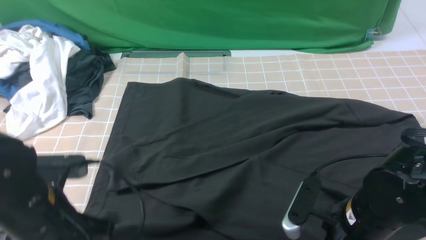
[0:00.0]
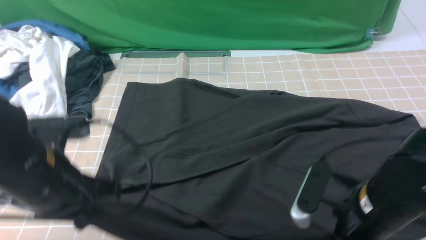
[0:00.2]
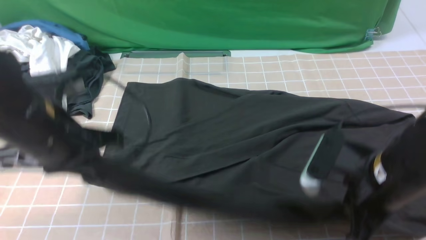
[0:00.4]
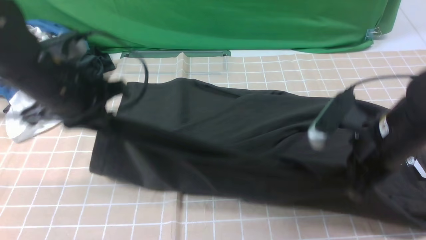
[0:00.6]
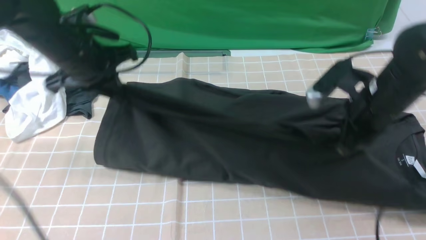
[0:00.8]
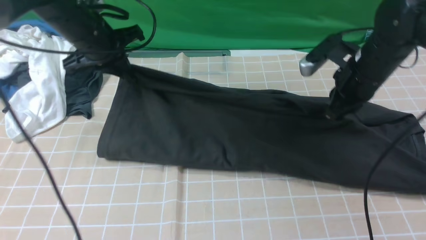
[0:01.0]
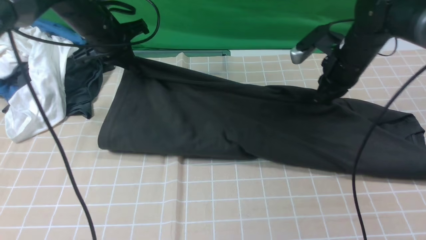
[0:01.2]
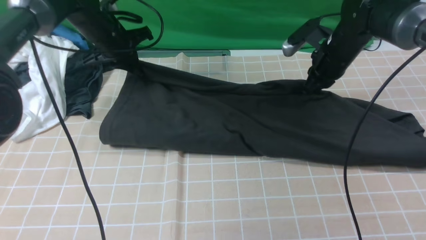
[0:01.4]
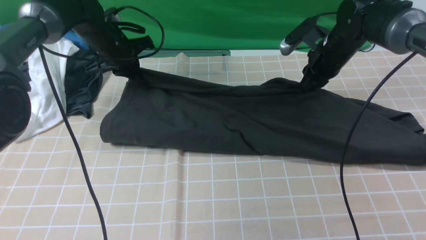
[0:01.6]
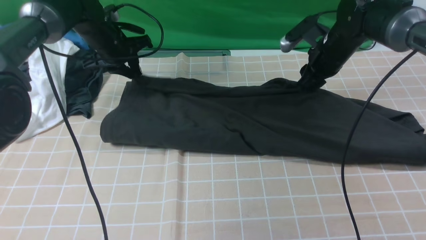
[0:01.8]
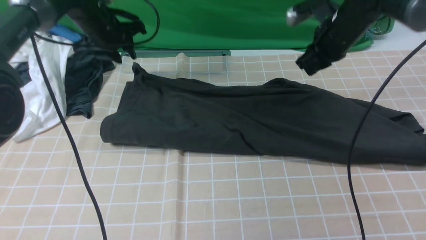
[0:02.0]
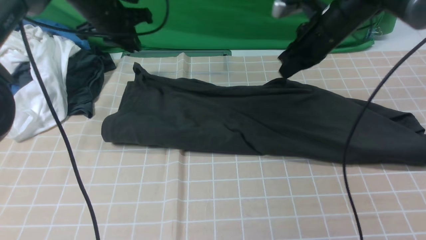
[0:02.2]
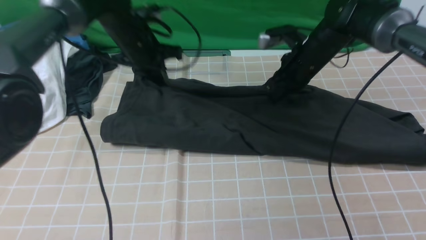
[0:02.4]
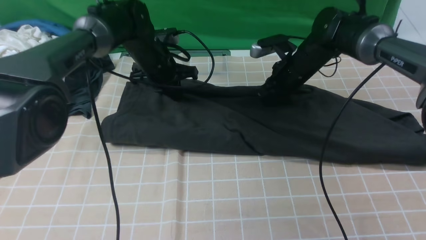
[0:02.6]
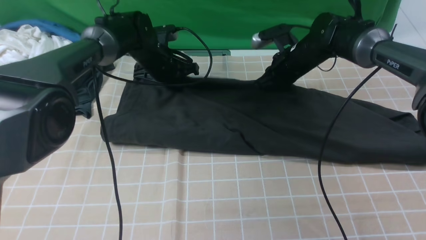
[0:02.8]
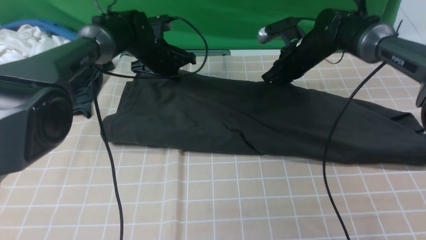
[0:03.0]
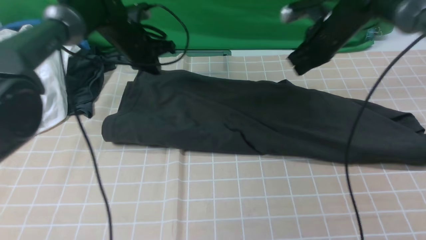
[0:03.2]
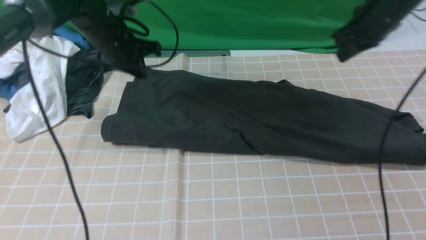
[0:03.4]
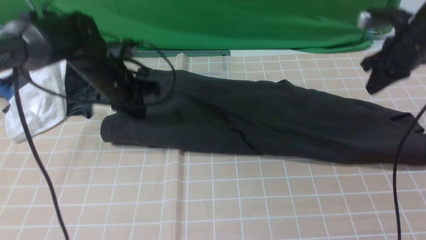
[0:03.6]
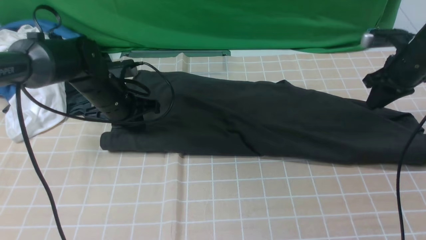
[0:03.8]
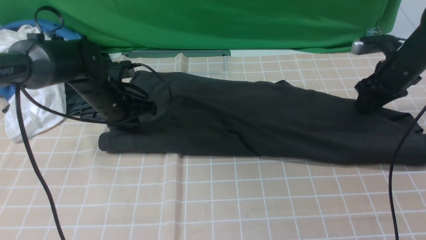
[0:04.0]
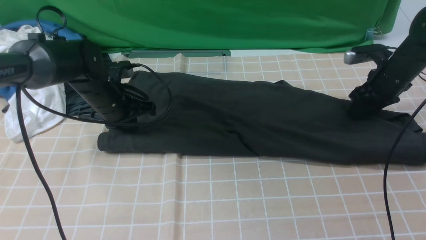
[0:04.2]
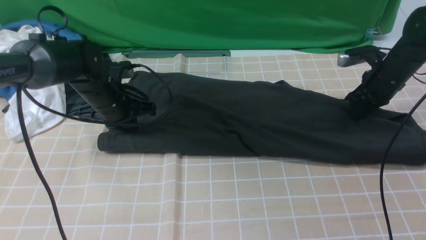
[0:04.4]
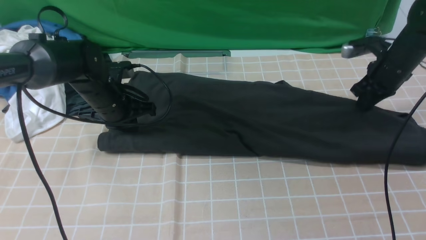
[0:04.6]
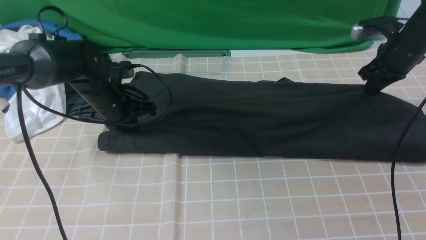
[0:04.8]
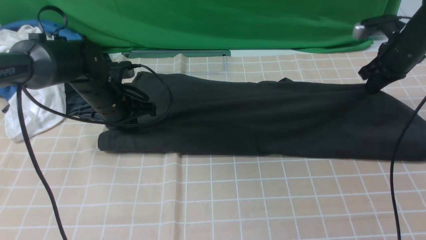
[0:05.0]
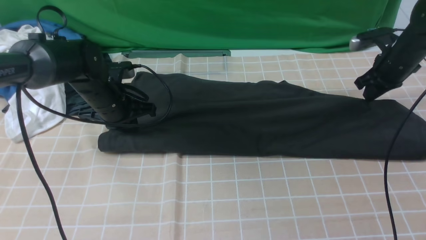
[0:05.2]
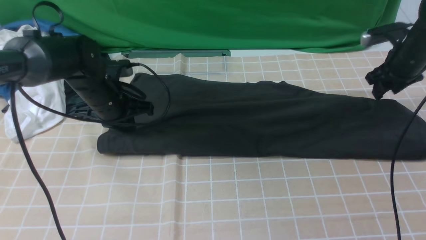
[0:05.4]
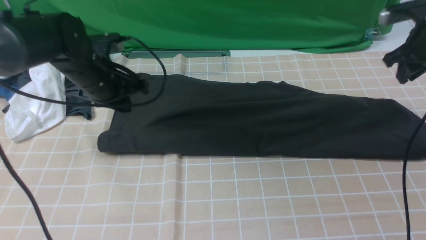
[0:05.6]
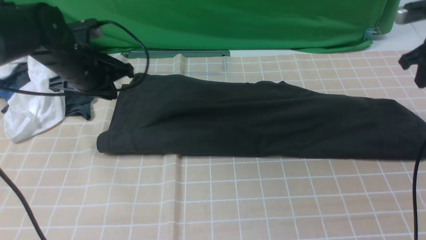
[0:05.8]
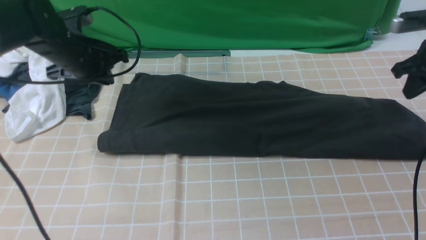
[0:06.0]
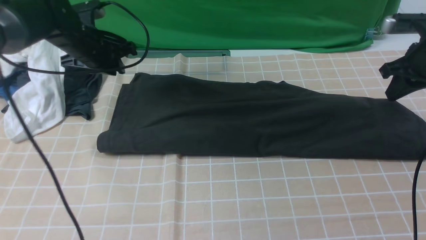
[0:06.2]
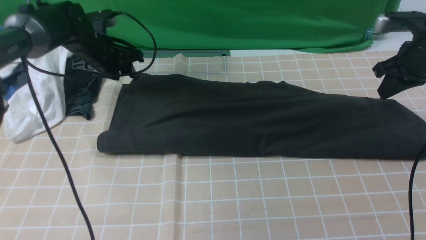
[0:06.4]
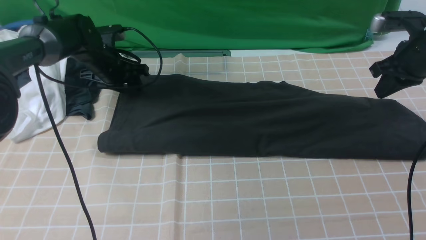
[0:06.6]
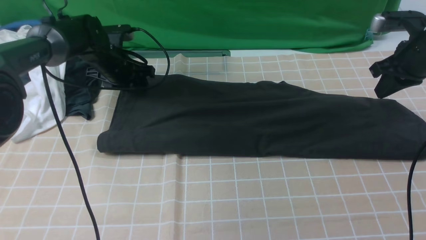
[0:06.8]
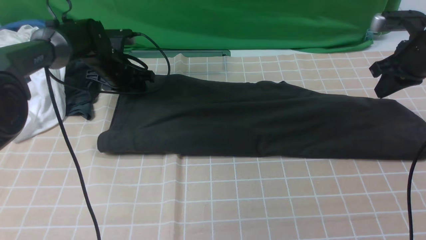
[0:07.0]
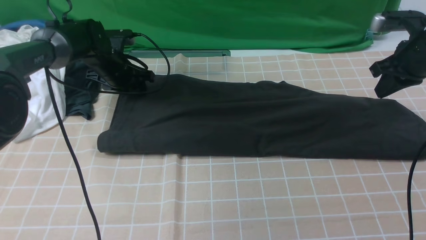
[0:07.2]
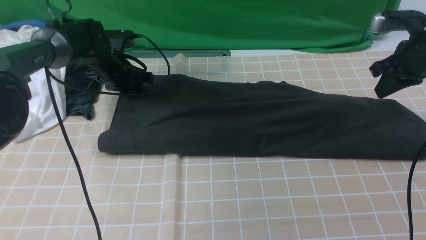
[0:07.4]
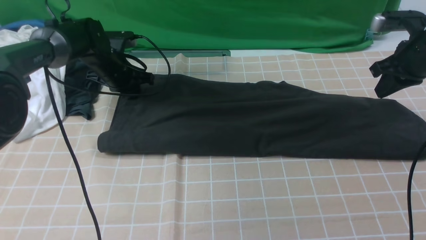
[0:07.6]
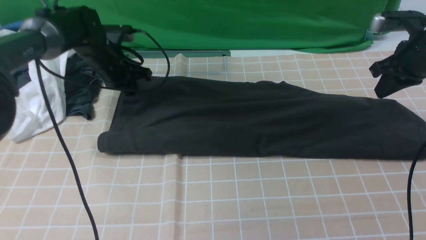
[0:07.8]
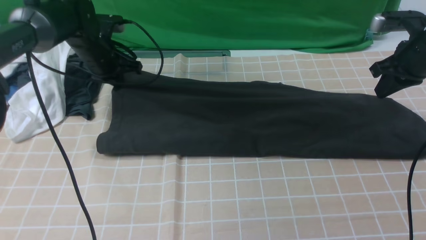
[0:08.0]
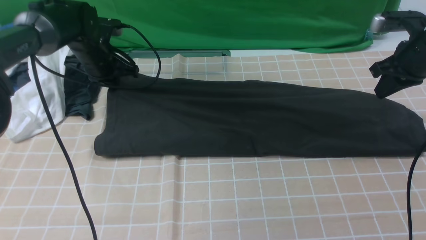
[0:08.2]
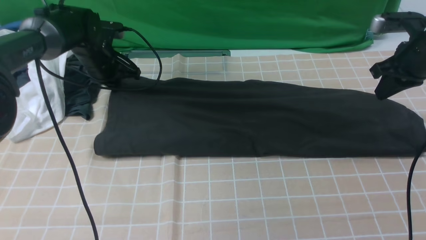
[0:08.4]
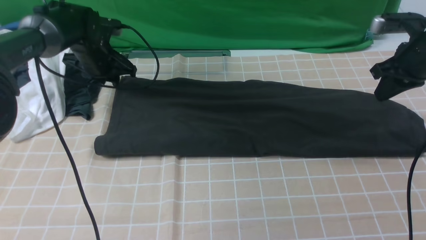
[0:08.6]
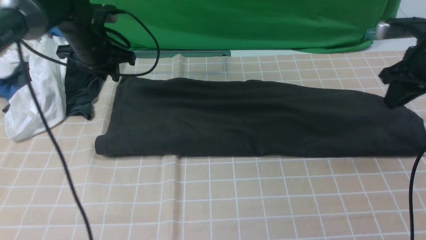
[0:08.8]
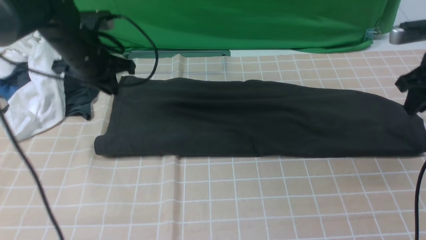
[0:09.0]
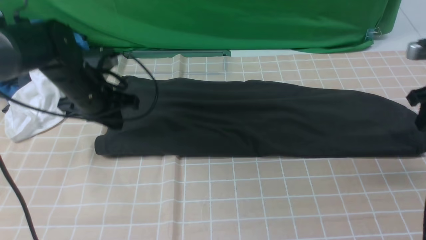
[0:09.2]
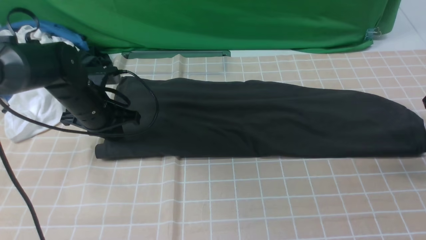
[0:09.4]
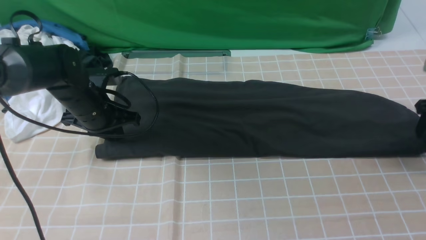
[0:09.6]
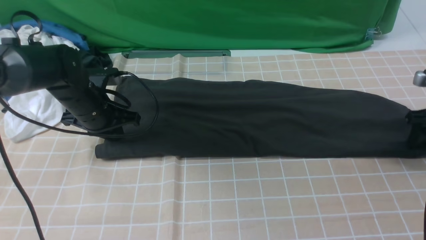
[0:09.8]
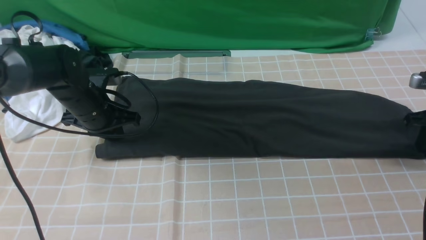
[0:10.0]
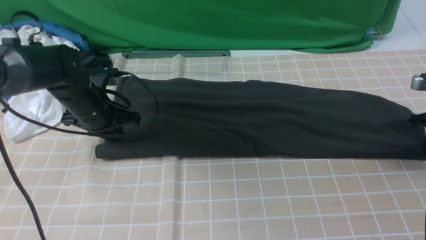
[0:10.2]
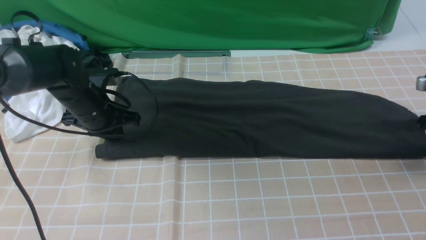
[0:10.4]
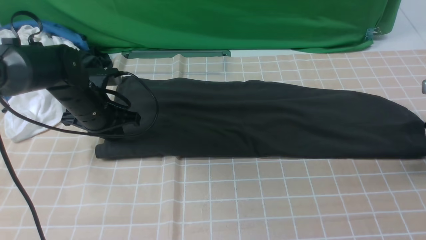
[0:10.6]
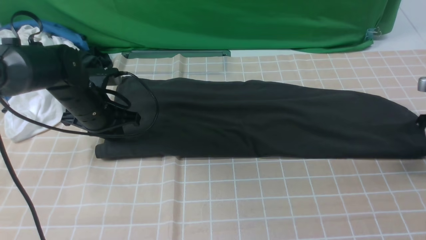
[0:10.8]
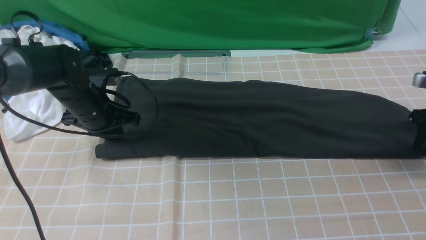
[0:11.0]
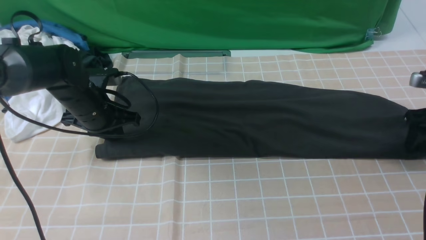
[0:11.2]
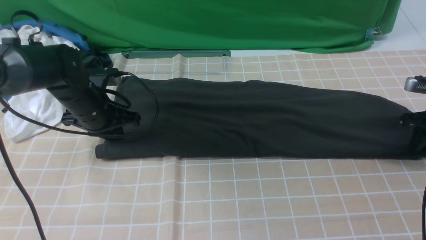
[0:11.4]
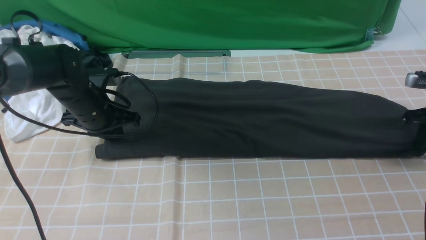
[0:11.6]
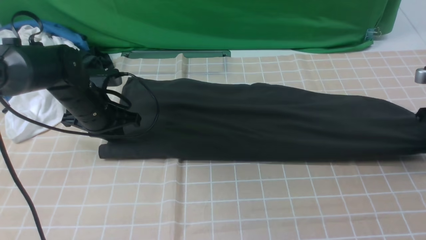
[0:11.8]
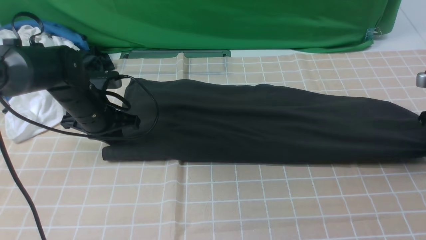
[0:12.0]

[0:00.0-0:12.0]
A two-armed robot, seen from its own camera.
Step, 0:00.2 to 0:02.0: use both arms to drag the lower edge of the fabric forward and fold it over the upper edge.
0:00.0 to 0:01.6: The grippers both shift forward by some 30 cm.
0:01.6 to 0:03.0: The left gripper heads to the right, covering approximately 5 cm; the right gripper closes up.
0:03.0 to 0:04.4: The right gripper travels to the right by roughly 15 cm, and opens, then closes again. The left gripper heads backward and to the left, covering about 10 cm.
0:04.4 to 0:06.0: The grippers both shift upward by some 10 cm.
0:06.0 to 0:07.6: The left gripper travels downward and forward by about 10 cm, and opens, then closes again.
0:07.6 to 0:09.0: The right gripper opens its fingers; the left gripper is displaced backward and upward by about 10 cm.
0:09.0 to 0:10.4: The right gripper goes about 10 cm downward and to the right, and closes. Meanwhile the left gripper travels downward by about 5 cm.
0:10.4 to 0:12.0: The right gripper opens, then closes once more.

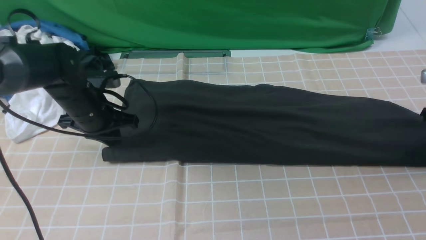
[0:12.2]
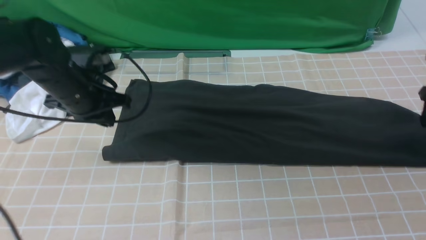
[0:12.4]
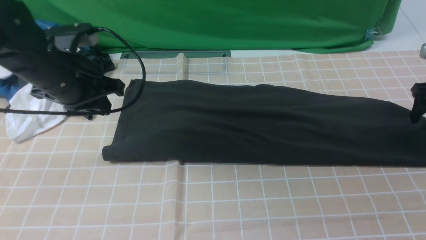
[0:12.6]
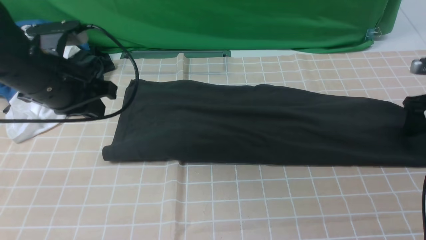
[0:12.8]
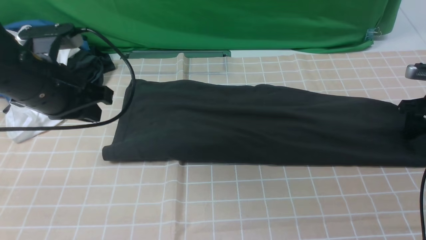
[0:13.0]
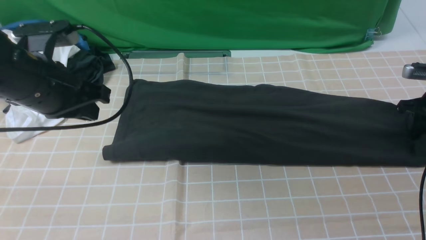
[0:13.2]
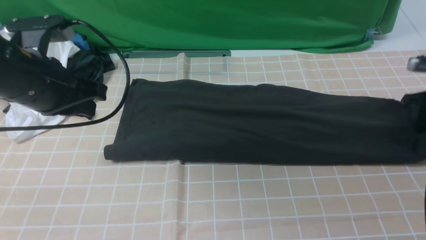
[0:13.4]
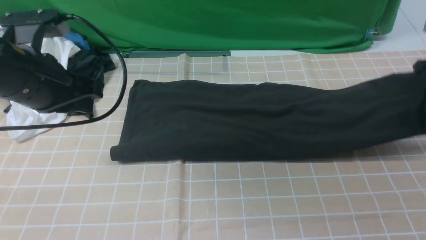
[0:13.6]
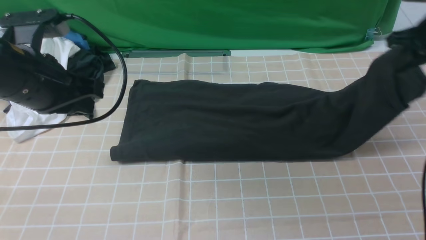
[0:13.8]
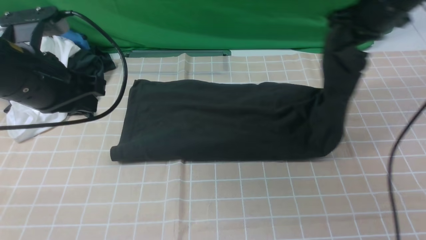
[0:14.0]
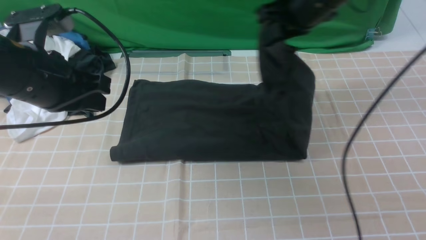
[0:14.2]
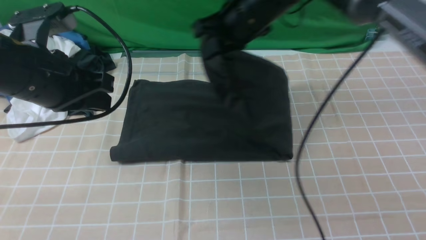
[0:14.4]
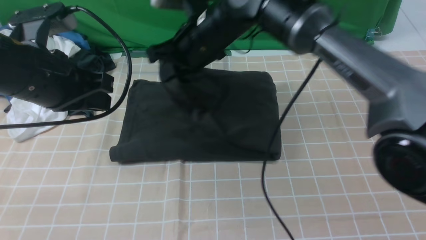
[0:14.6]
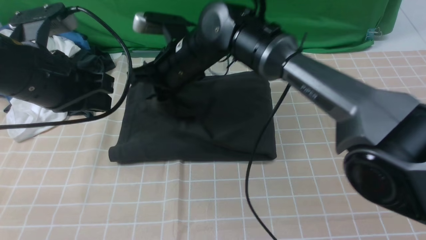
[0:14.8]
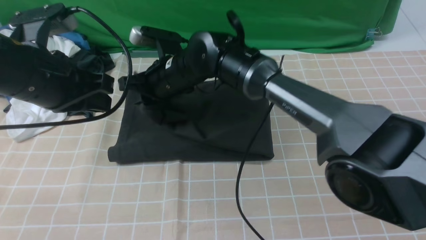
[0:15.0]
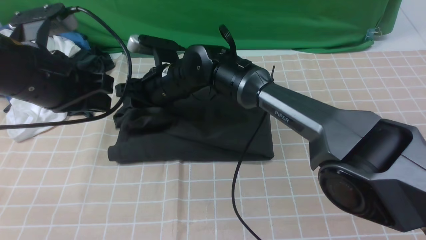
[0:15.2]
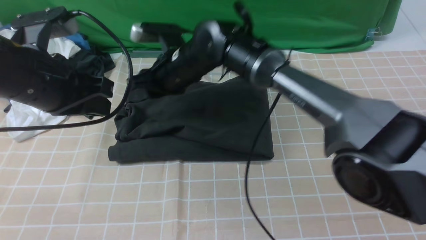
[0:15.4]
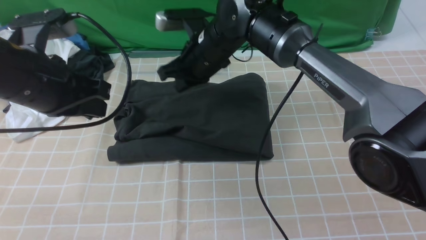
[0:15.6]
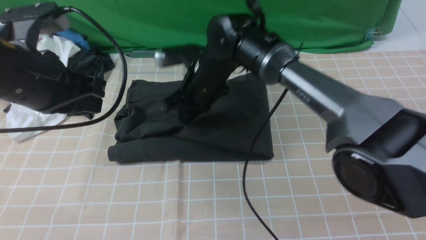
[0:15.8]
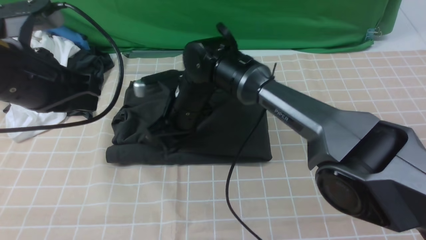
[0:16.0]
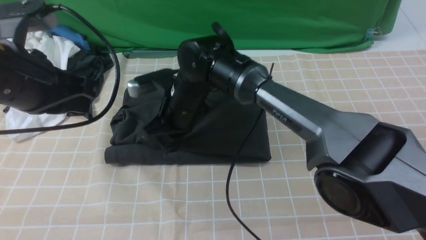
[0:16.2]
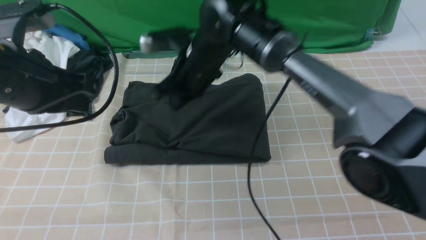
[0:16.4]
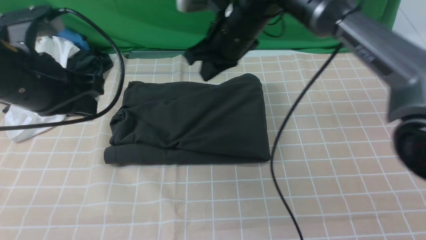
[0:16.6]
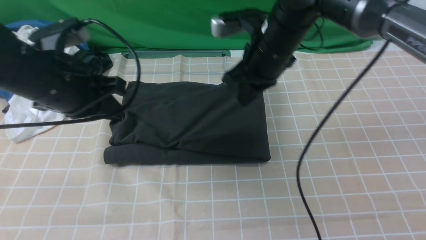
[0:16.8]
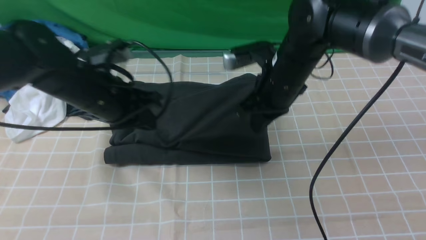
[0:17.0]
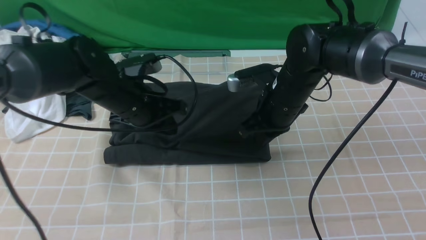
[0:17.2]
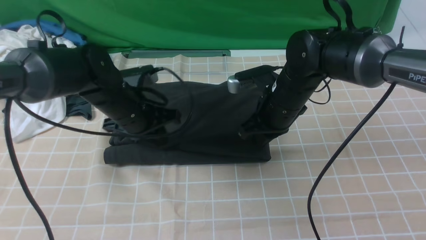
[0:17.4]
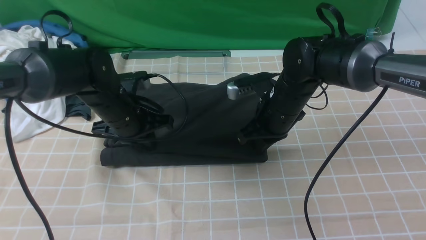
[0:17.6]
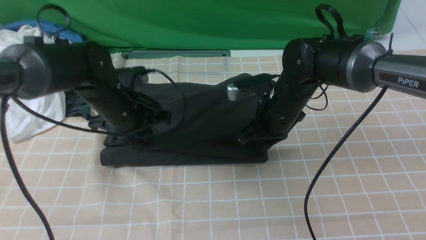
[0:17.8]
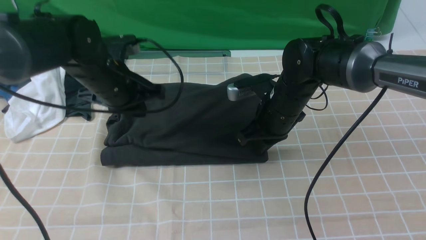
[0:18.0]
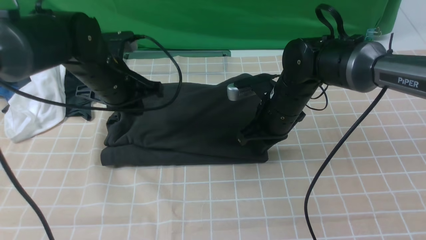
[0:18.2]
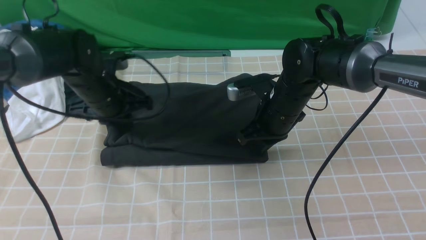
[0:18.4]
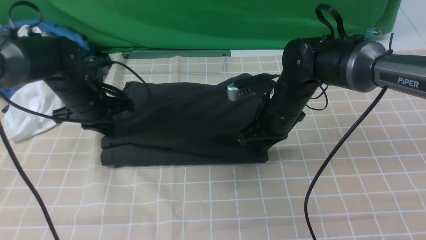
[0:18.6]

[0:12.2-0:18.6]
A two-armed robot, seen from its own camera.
Step, 0:13.6 to 0:15.8: use the right arm to drag the right edge of the fabric to the left and folds it over the left edge.
0:12.2 to 0:13.8: The left gripper goes approximately 15 cm upward and backward. The right gripper moves to the left and upward, some 15 cm, and closes up.
0:13.8 to 0:15.4: The right gripper moves to the left, roughly 35 cm.
0:15.4 to 0:17.0: The right gripper shifts approximately 15 cm to the right, and closes its fingers. Meanwhile the left gripper moves downward and forward, some 10 cm.
0:17.0 to 0:18.6: The left gripper travels forward, to the left and downward by roughly 10 cm. Meanwhile the right gripper shifts approximately 5 cm downward.
